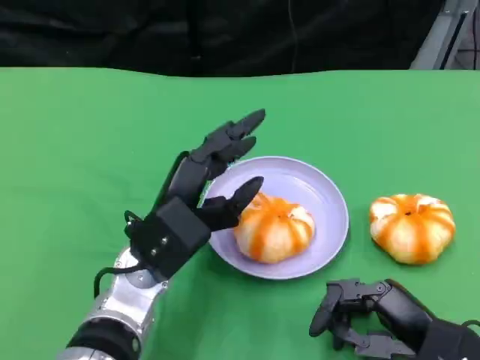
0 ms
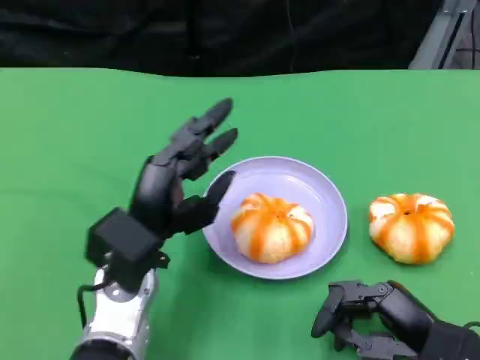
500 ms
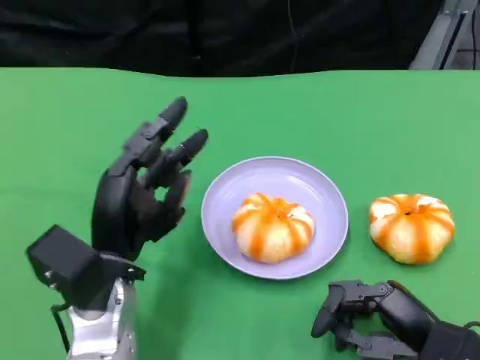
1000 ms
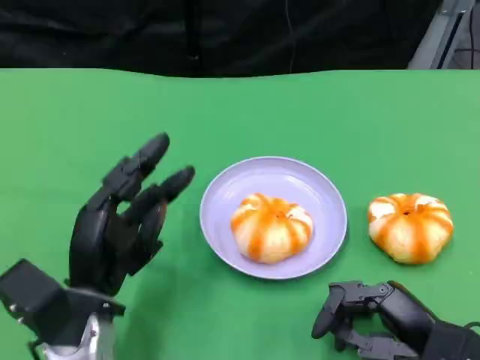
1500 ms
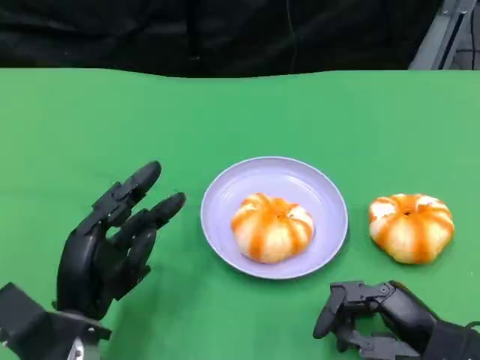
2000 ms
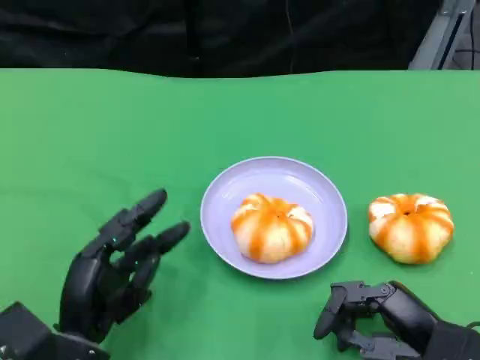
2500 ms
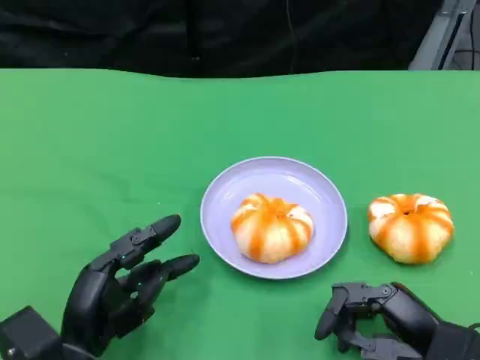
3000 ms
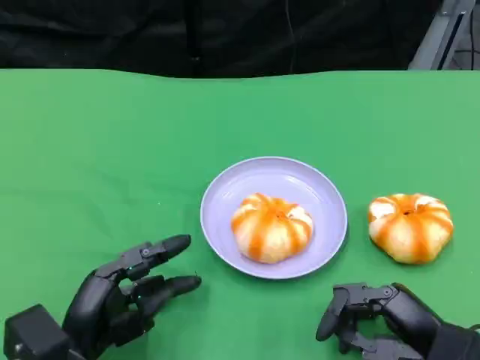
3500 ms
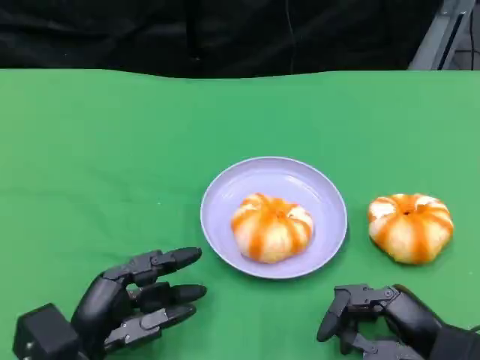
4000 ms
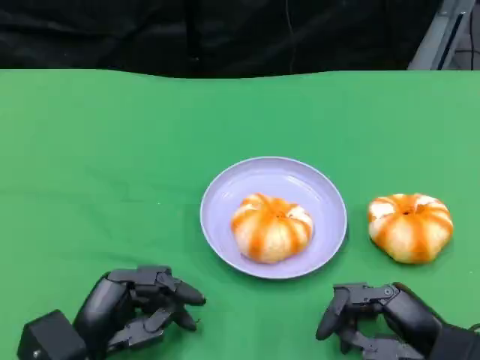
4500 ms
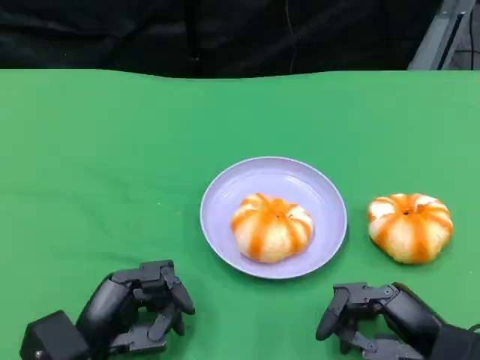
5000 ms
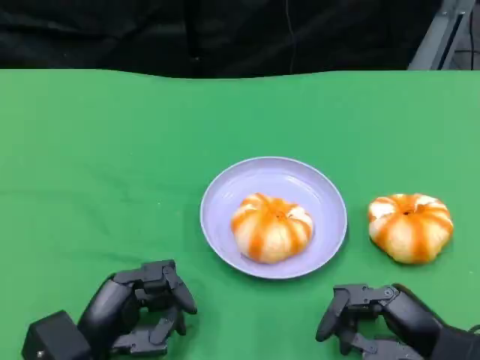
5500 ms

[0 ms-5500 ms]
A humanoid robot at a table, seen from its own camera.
Task of the whole recording: Grasp the bread from the table and place it into the plate.
0 ms to 2000 ms: The left hand heads to the left, backward and downward, covering some 10 cm.
2000 ms to 3500 ms: The hands make only small movements.
3500 ms to 5500 ms: The hands stay close to where they were, moving slightly.

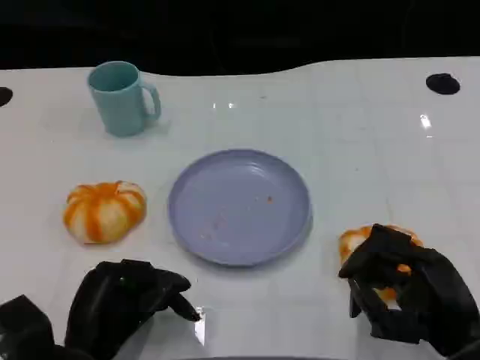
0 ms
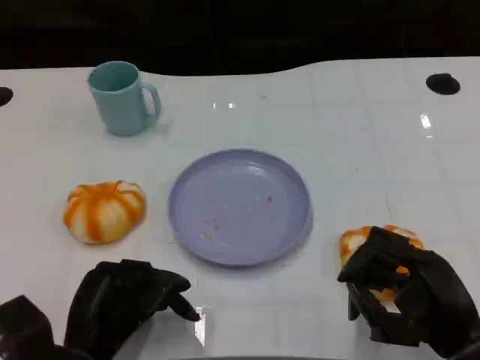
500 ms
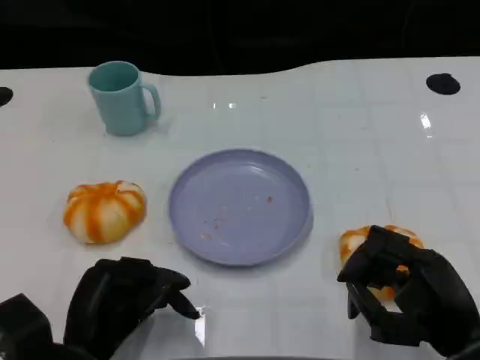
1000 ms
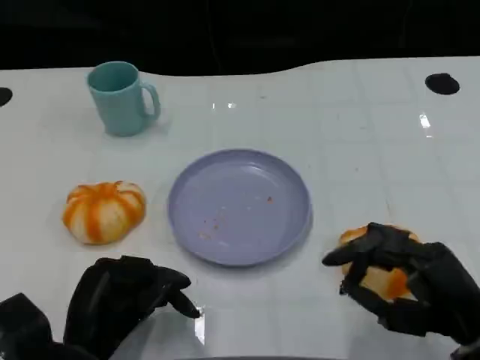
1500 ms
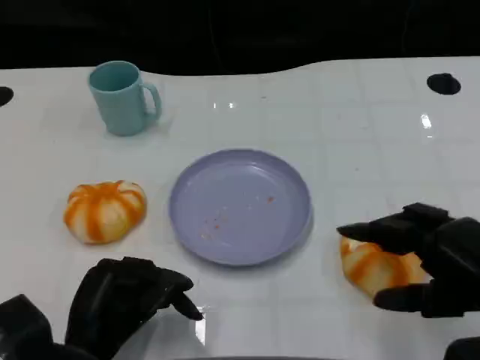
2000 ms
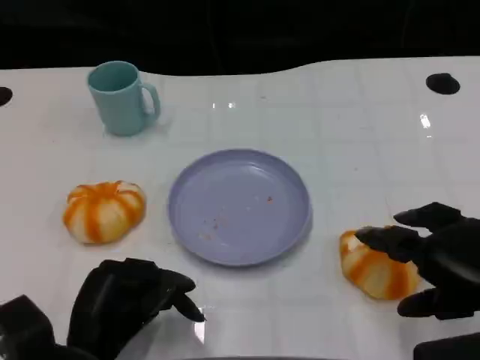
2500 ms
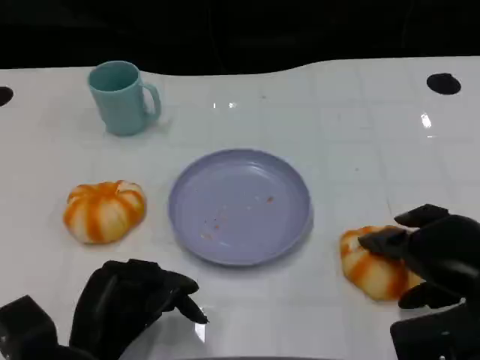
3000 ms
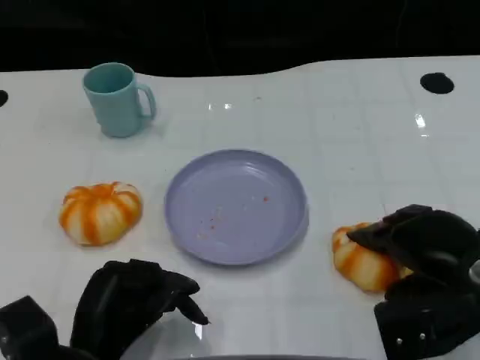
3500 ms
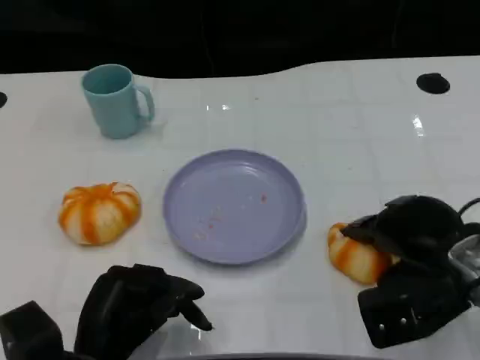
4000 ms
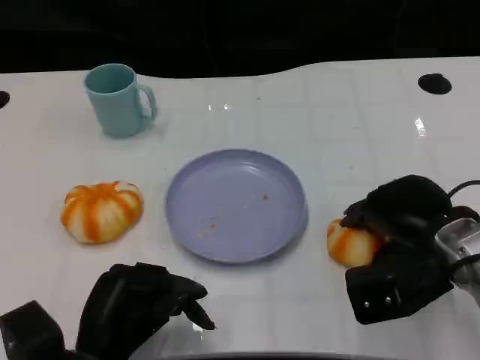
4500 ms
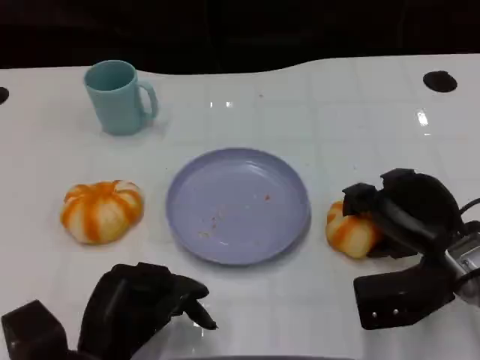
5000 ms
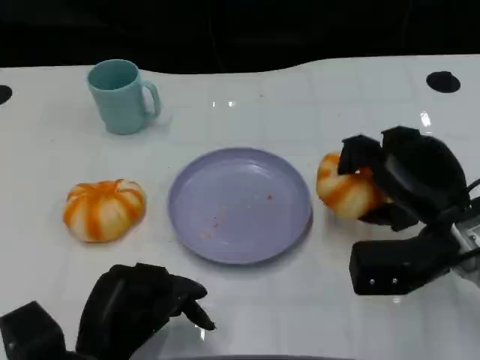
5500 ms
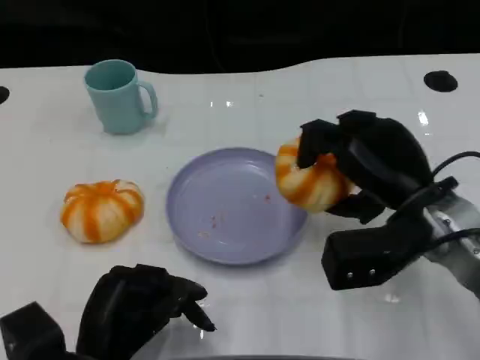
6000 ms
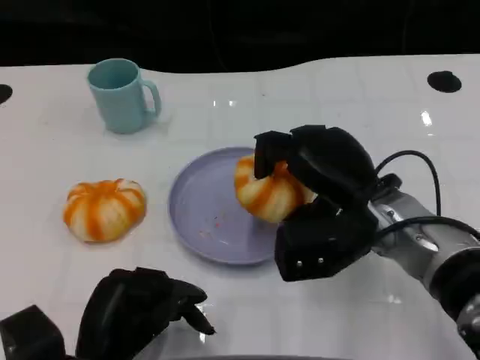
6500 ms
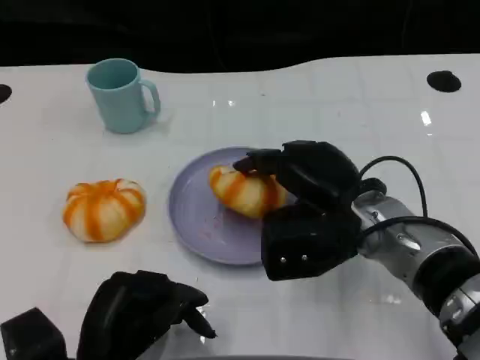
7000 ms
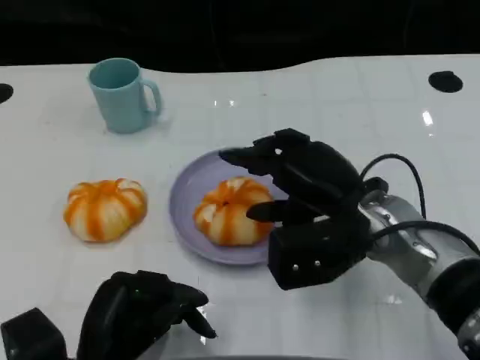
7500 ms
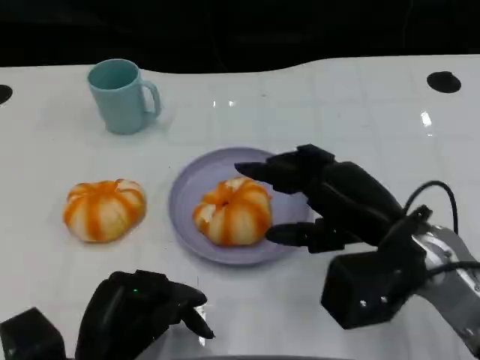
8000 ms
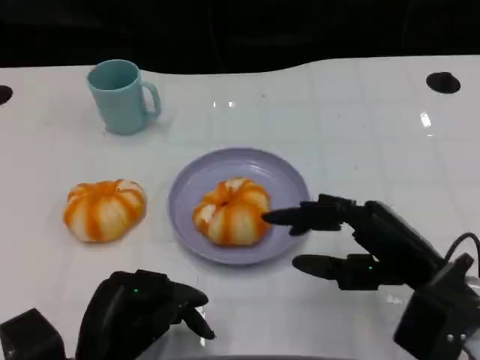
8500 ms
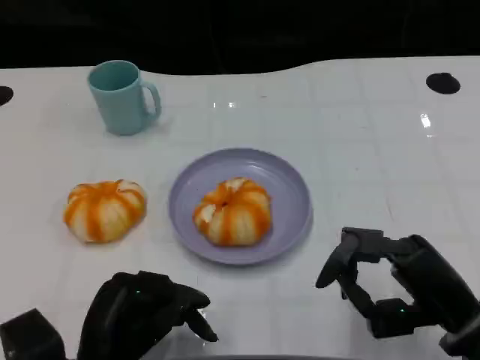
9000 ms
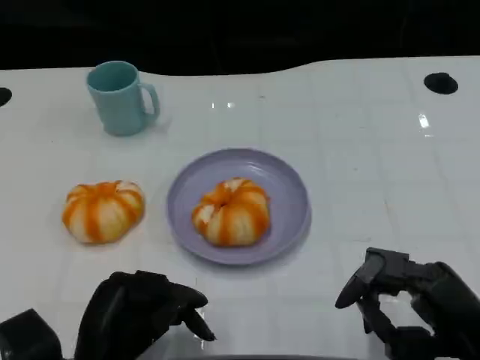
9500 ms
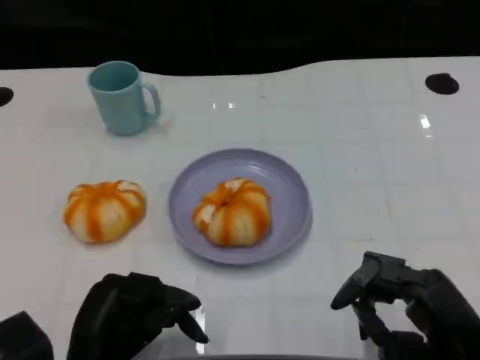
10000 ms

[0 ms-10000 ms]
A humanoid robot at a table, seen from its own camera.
Task of the whole recording: Grasp the bread from the table and place it into the plate.
0 ms to 2000 ms: The right hand goes approximately 5 cm upward.
2000 ms to 4000 ms: The right hand heads forward, covering about 10 cm.
4000 ms to 6000 ms: The right hand changes place by about 5 cm.
8000 ms to 10000 ms: The right hand heads backward, to the right and downward, covering about 15 cm.

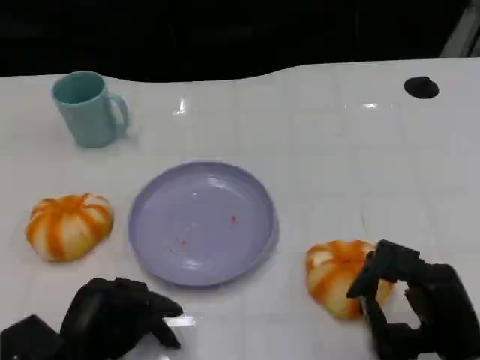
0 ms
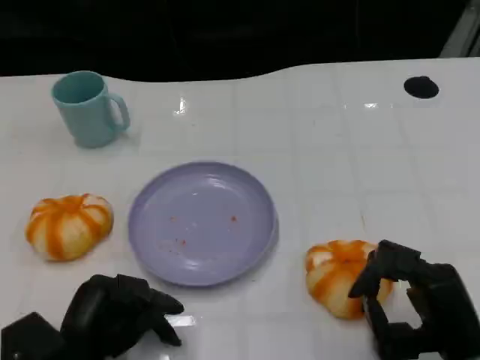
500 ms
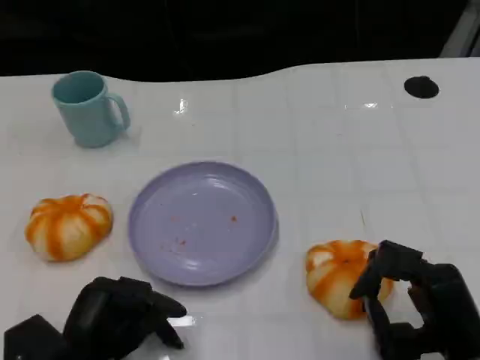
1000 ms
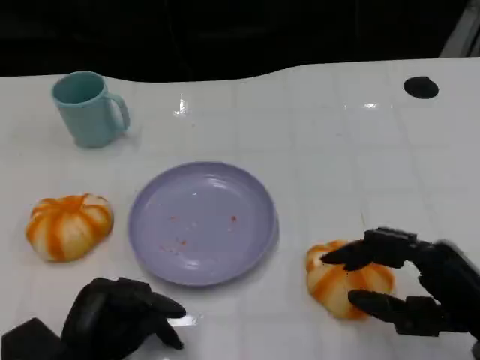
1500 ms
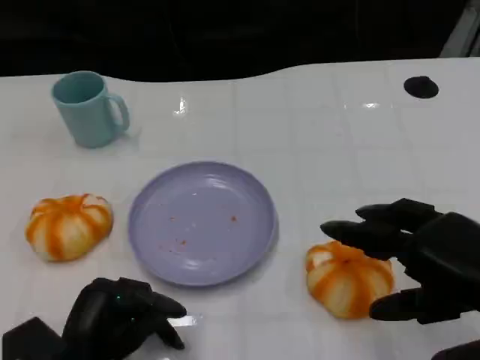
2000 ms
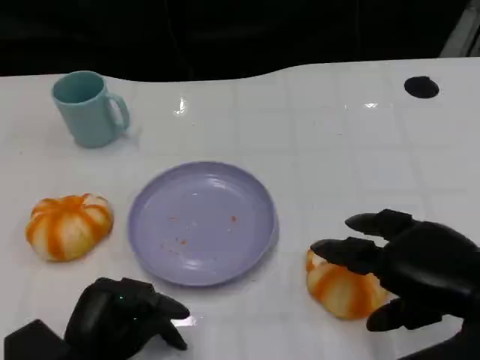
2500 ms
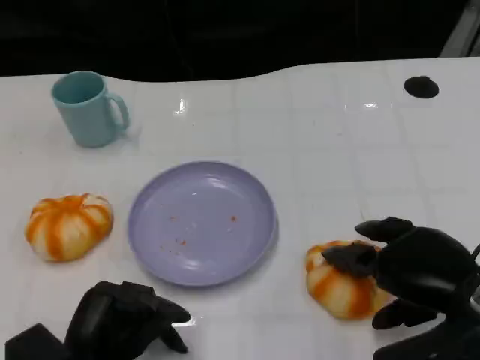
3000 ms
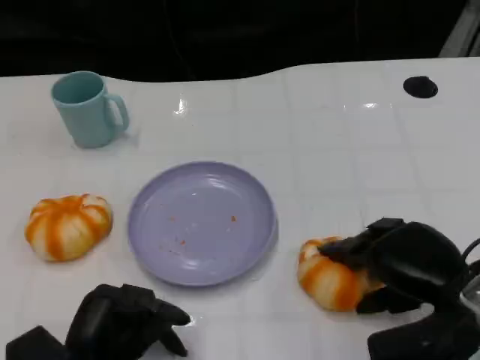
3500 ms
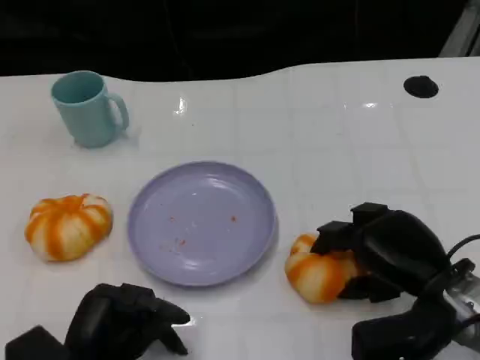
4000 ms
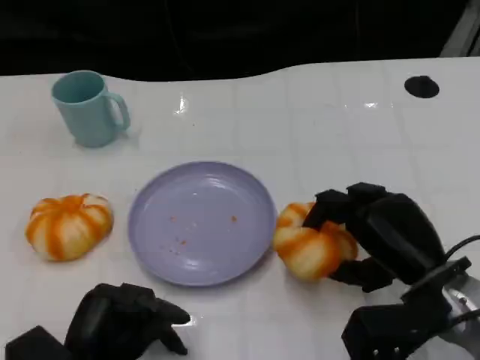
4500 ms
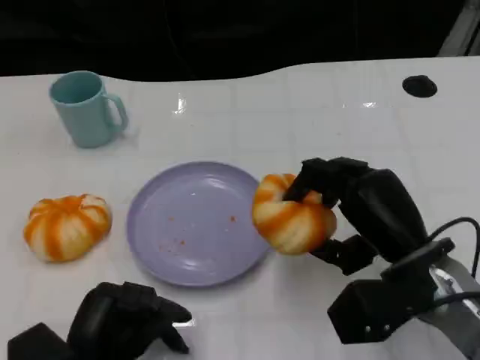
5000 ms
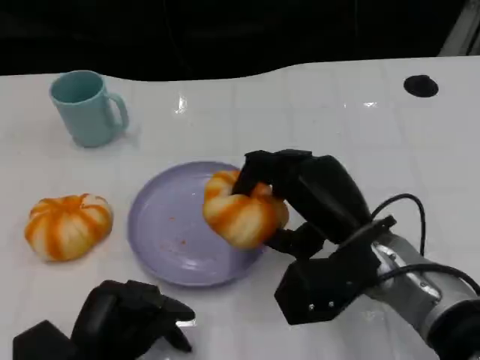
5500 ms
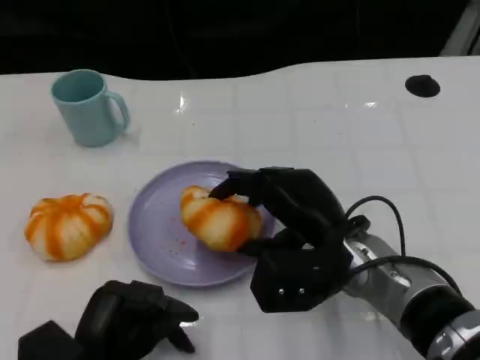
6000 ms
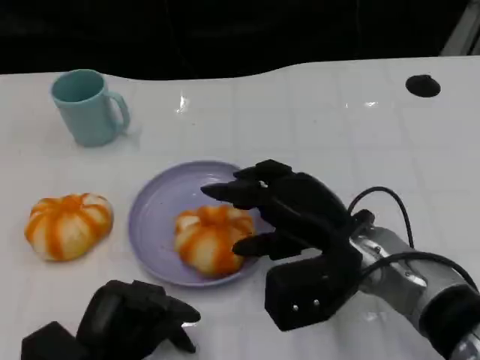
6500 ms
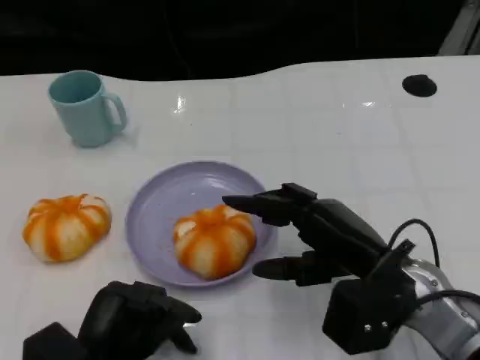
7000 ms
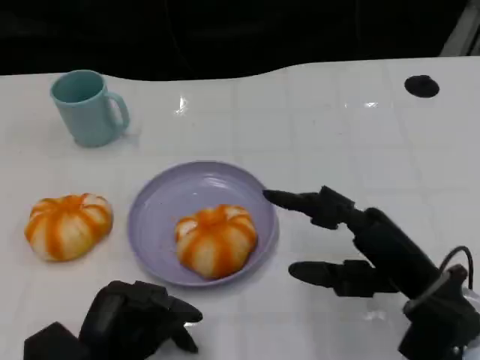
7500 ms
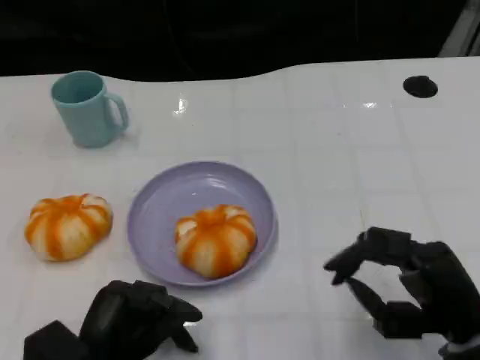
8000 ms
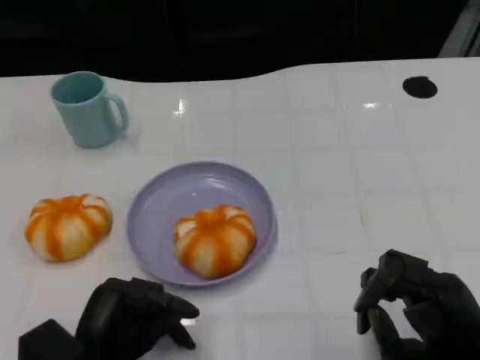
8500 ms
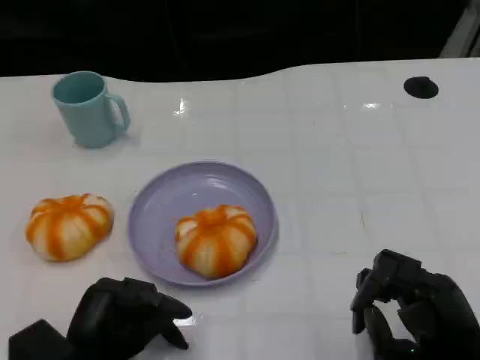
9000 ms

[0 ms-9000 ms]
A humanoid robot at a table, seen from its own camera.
Task of the whole recording: Grasp the bread from the table and place it into the plate.
0 ms to 2000 ms: The right hand shifts some 10 cm upward.
2000 ms to 4500 ms: The right hand heads downward, forward and to the left, covering about 10 cm.
7000 ms to 9000 ms: The right hand goes some 10 cm backward, to the right and downward.

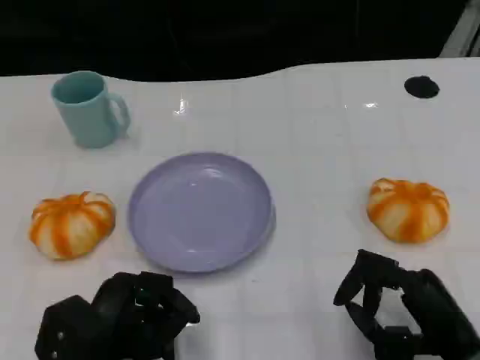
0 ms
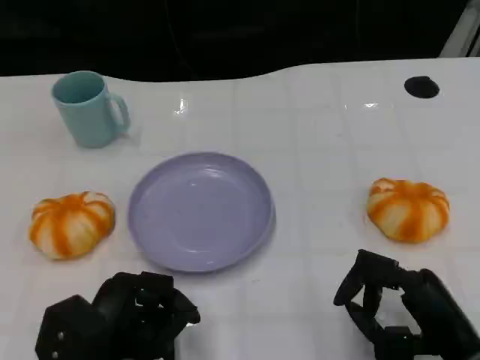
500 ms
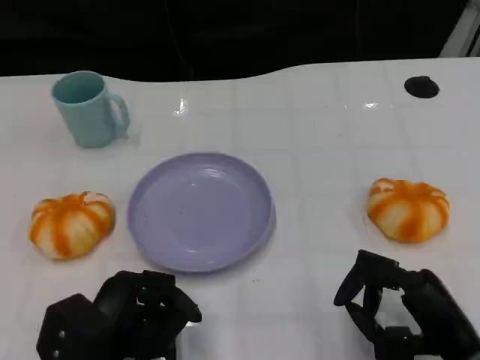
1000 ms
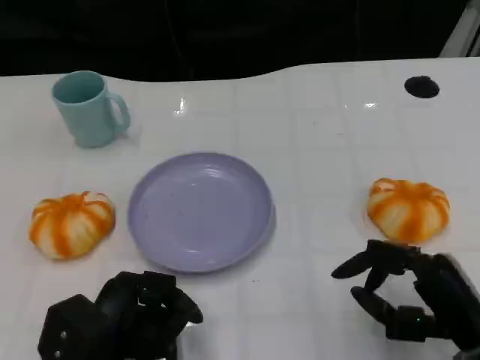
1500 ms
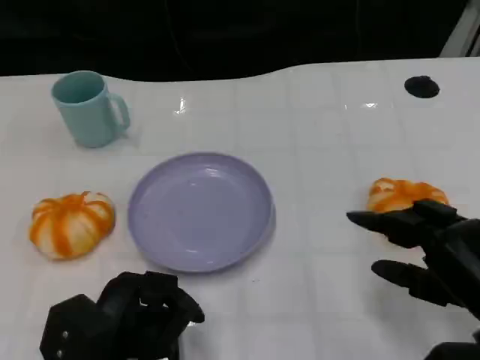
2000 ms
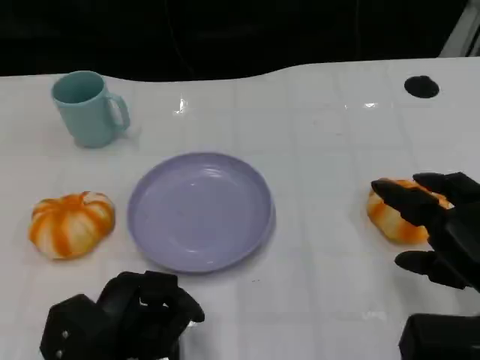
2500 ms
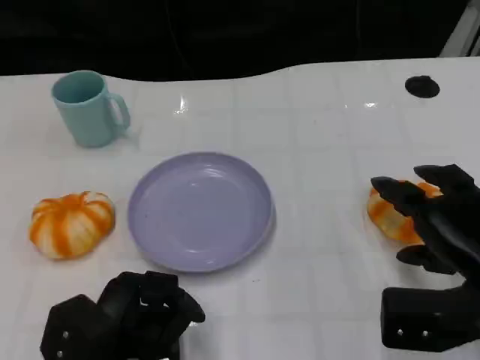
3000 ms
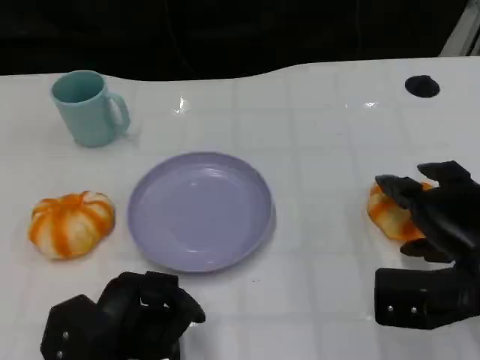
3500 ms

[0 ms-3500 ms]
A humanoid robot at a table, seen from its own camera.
Task of the whole recording: Grasp the bread from the table and place it into the plate.
0 ms to 2000 ms: The right hand changes place by approximately 5 cm.
2000 ms to 3500 ms: The right hand goes about 5 cm forward.
